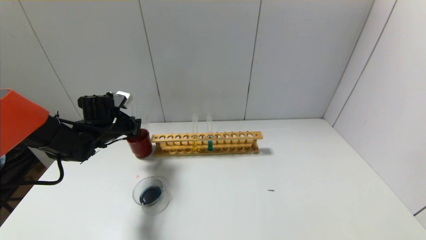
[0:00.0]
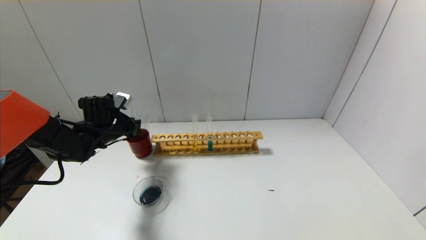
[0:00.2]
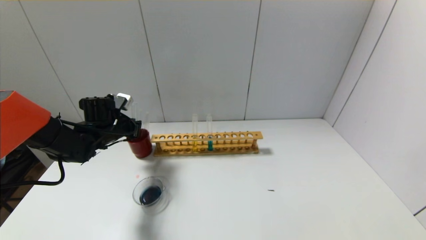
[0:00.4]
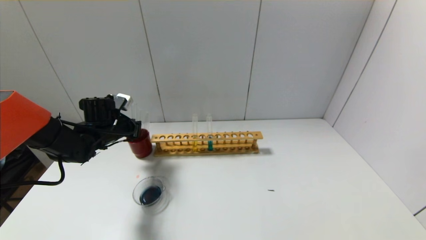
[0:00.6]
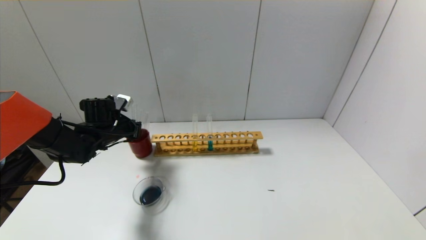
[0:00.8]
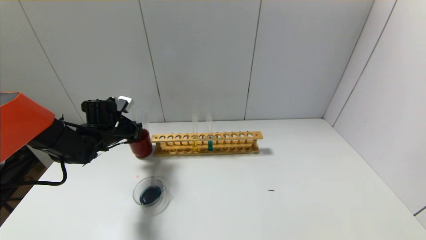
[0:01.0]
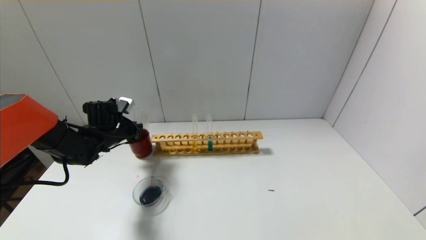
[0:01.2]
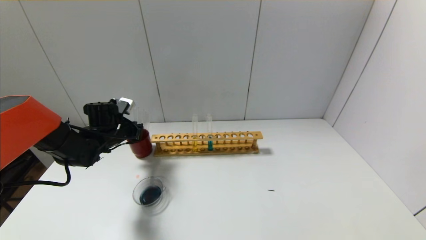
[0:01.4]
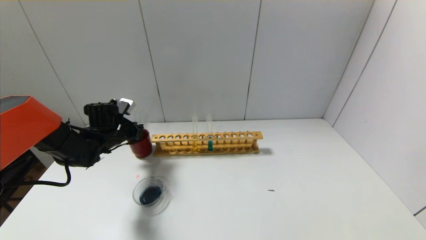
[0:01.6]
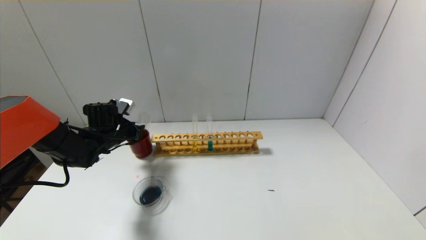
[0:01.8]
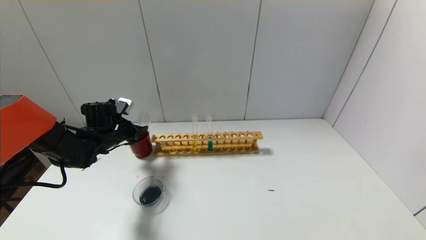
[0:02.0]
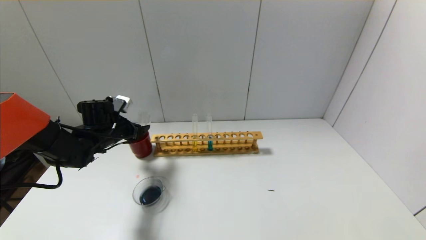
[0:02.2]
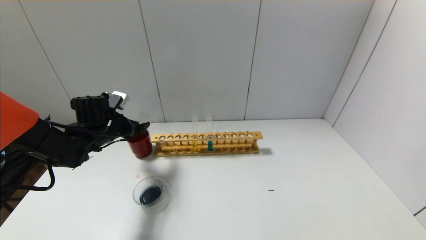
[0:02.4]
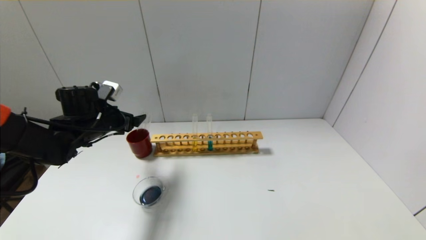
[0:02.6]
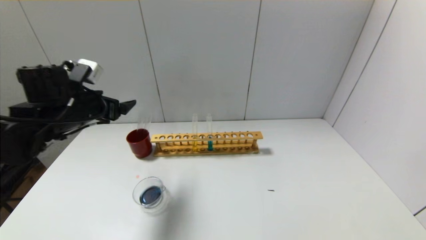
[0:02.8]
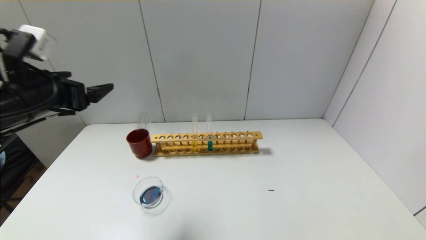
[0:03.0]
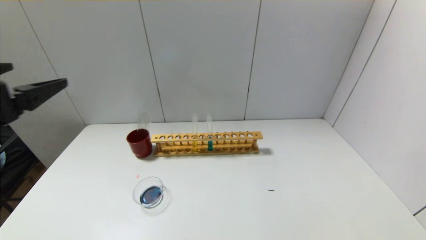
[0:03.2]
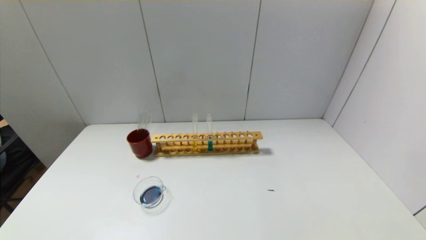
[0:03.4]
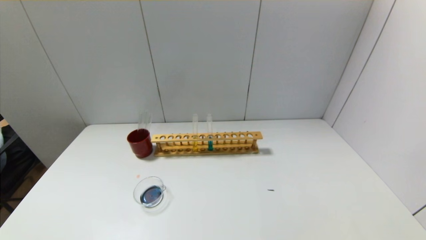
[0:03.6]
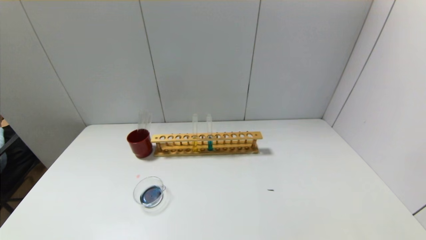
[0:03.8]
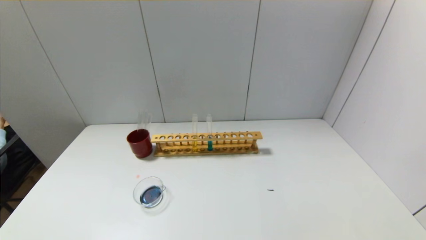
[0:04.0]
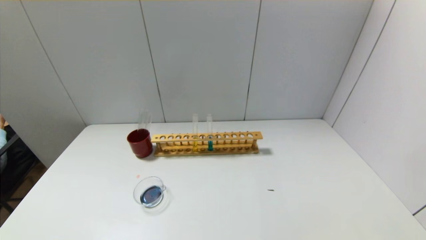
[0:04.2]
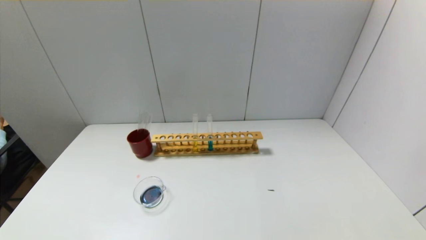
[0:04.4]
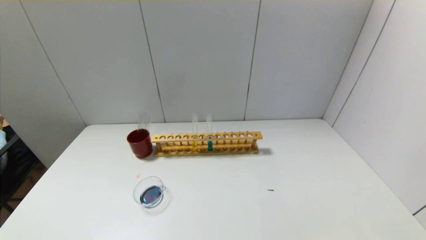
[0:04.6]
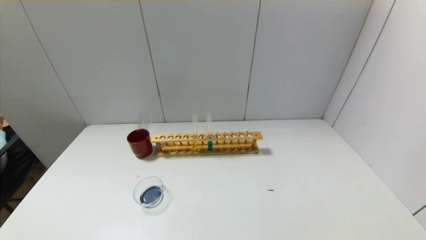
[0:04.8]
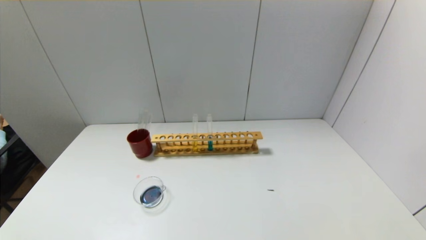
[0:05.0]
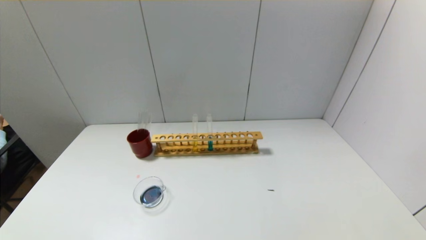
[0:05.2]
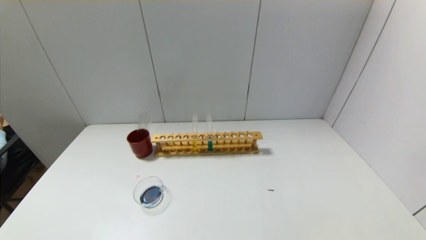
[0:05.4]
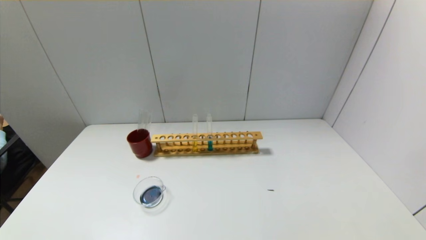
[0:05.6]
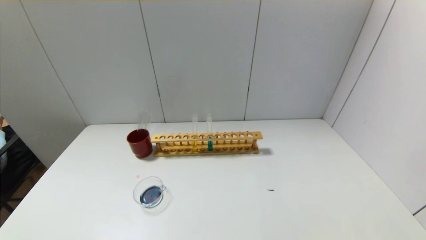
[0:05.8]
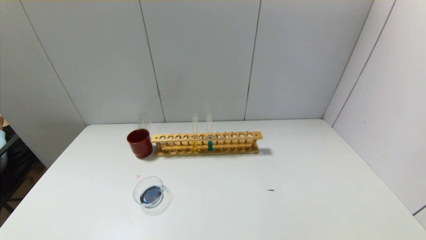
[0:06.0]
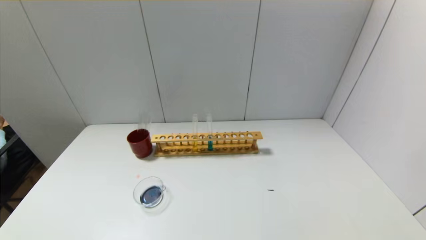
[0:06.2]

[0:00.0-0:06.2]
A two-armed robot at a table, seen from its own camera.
Step, 0:00.0 to 0:02.0: Place the test tube into the brown cup with the left gripper.
0:00.0 to 0:01.6: The grippers move only a little.
0:01.6 to 0:03.2: The left gripper travels backward and upward by roughly 35 cm, and opens.
0:03.2 to 0:04.6: The left gripper heads backward and downward, covering approximately 20 cm.
